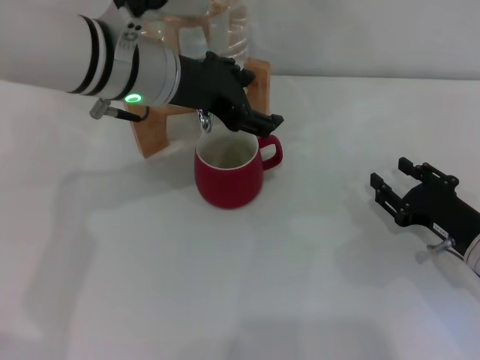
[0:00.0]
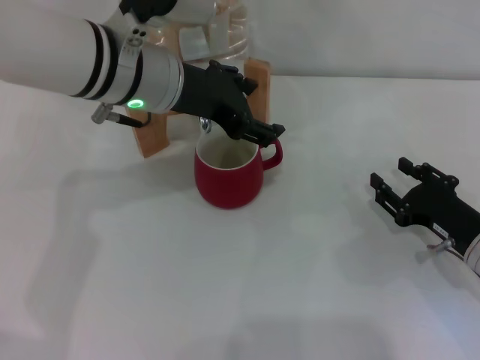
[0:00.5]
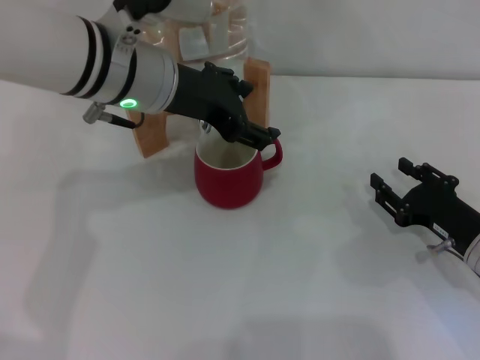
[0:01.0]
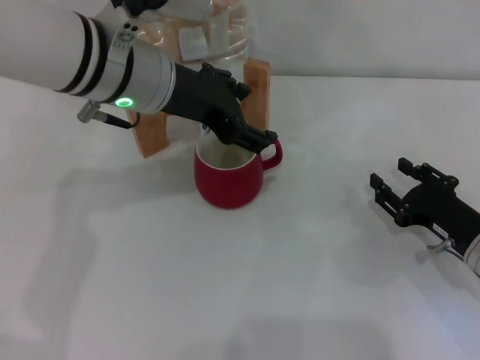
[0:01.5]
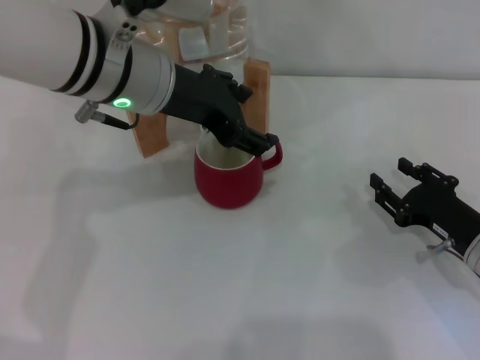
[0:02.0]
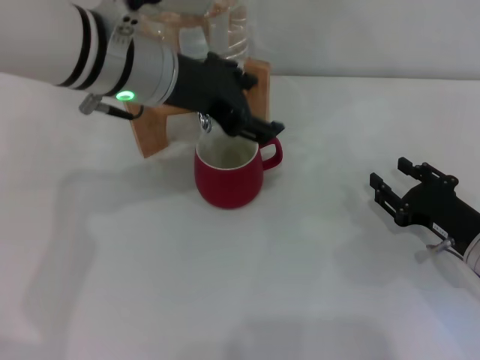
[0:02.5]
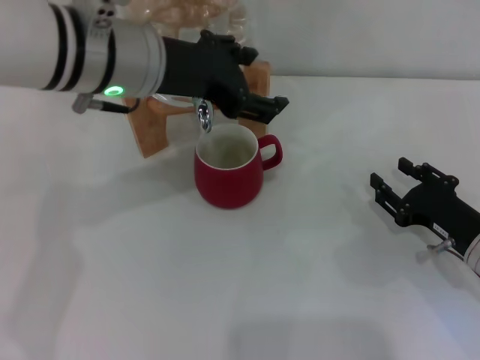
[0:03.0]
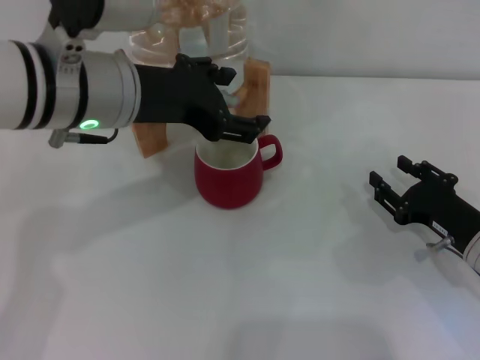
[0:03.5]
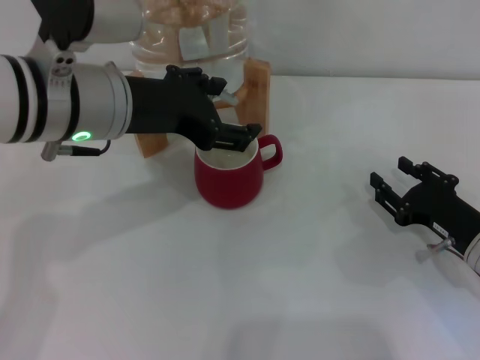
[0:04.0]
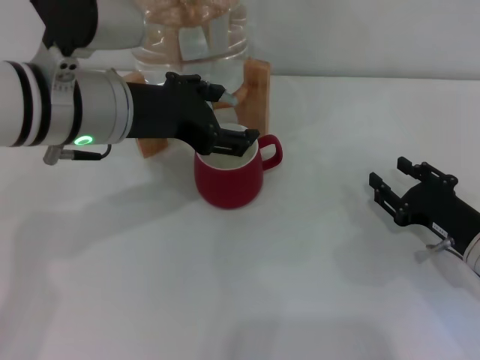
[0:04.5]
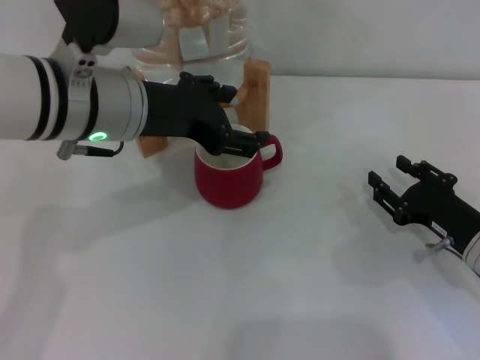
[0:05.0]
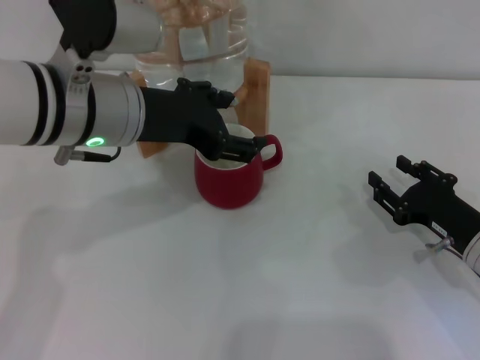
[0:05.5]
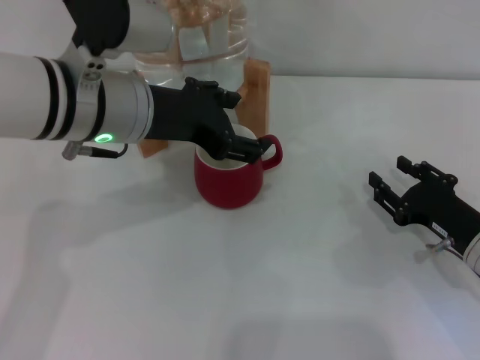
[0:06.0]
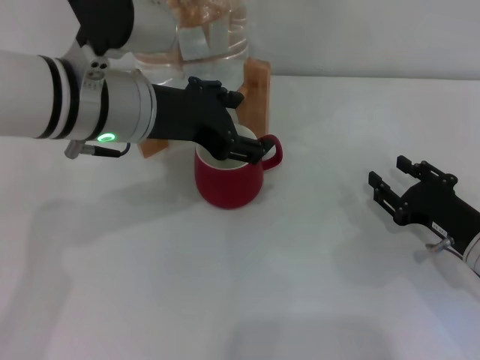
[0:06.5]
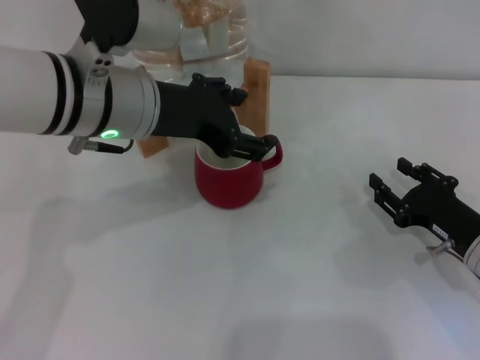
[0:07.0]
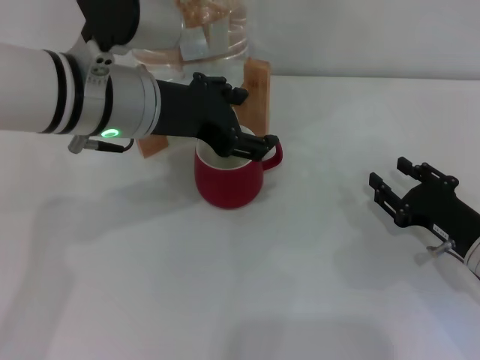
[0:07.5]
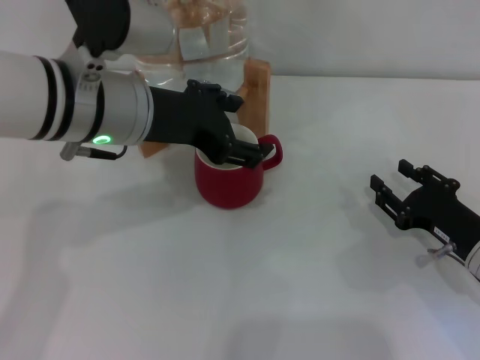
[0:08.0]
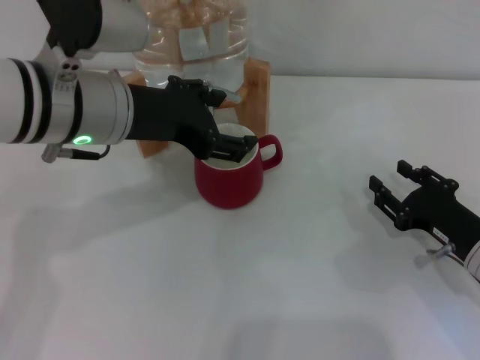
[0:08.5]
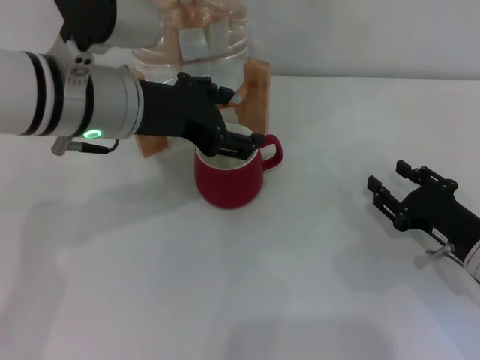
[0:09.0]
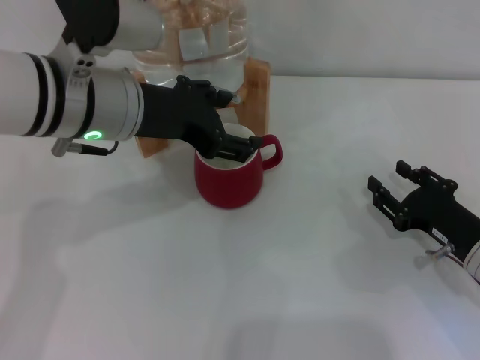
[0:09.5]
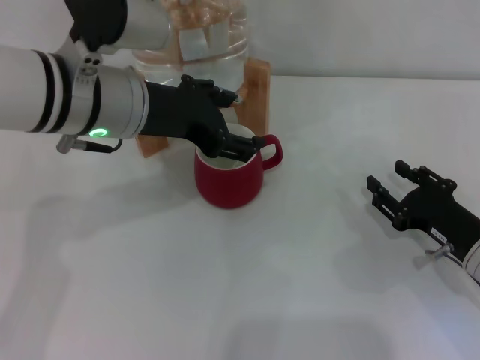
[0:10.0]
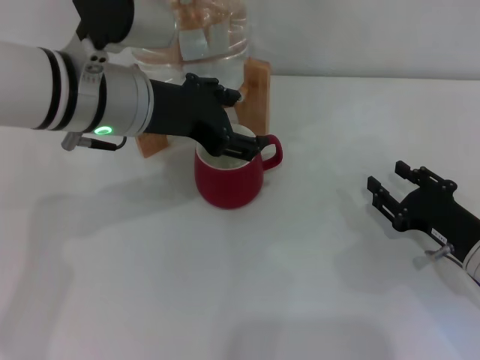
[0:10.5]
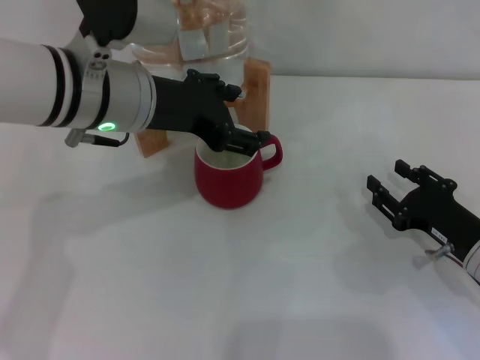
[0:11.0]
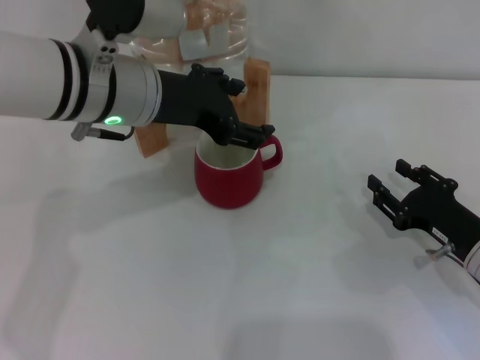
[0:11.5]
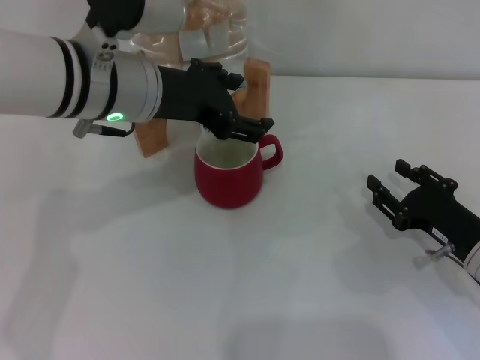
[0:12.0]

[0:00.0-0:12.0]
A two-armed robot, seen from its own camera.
Task of the whole recording: the right gripper pick up the red cup and place it horizontally under the faucet, the left gripper turn on the faucet to fill the cup, and then turn off the faucet.
Step, 0:00.0 to 0:05.0: Open the dispenser valve and fill the cup with water with the left gripper.
0:00.0 to 0:02.0: The grippers stay close to where they were, moving slightly.
0:02.0 to 0:04.0: The left gripper changes place by about 5 cm.
0:04.0 to 0:06.0: The grippers move only a little.
0:06.0 to 0:08.0: Both grippers stay about where they are.
0:08.0 to 0:12.0: The grippers stay close to where they were, moving slightly.

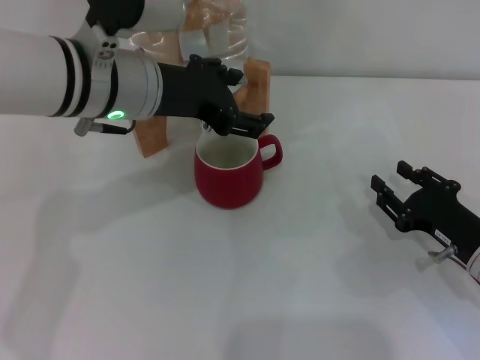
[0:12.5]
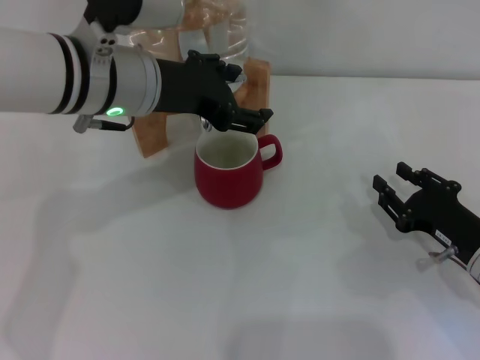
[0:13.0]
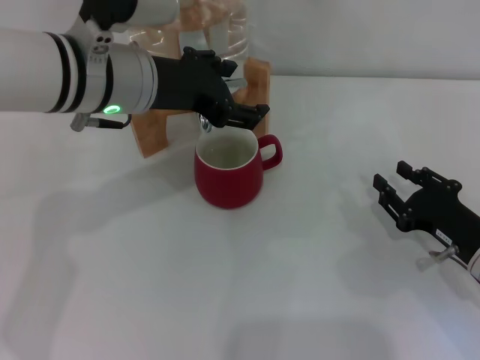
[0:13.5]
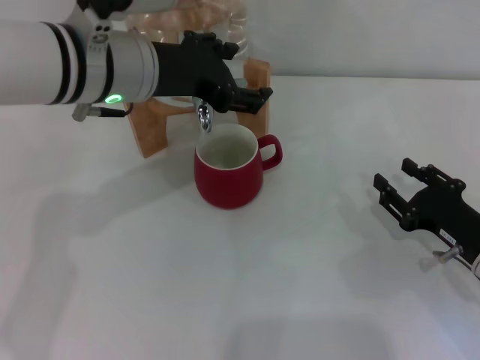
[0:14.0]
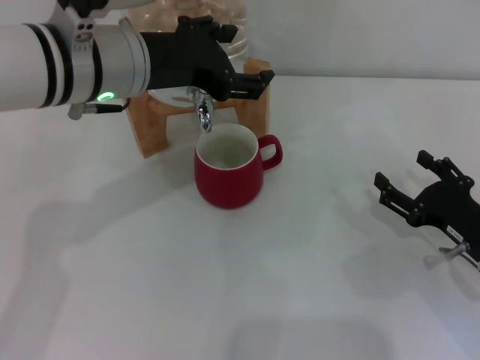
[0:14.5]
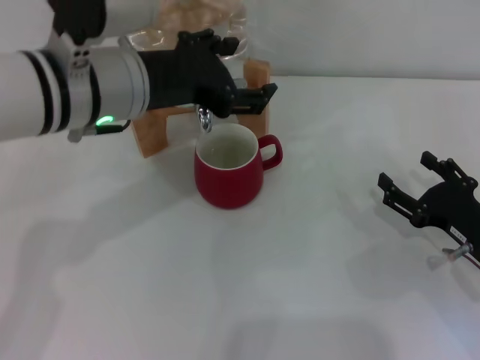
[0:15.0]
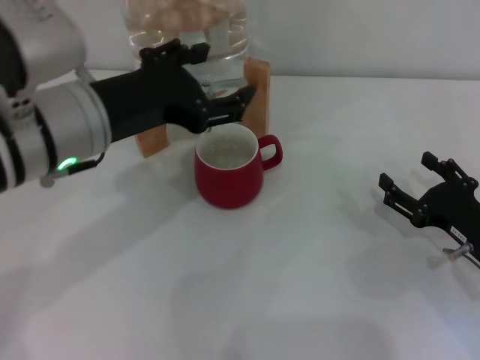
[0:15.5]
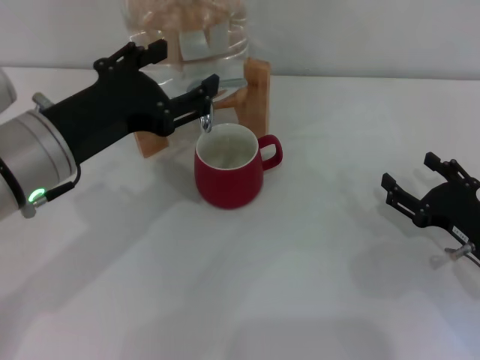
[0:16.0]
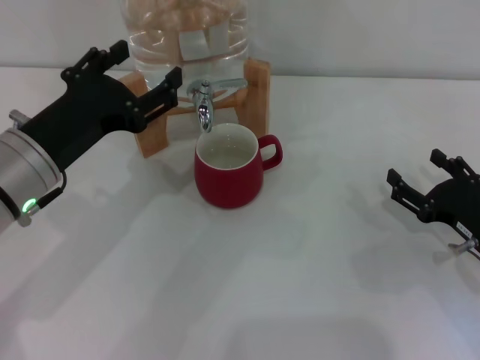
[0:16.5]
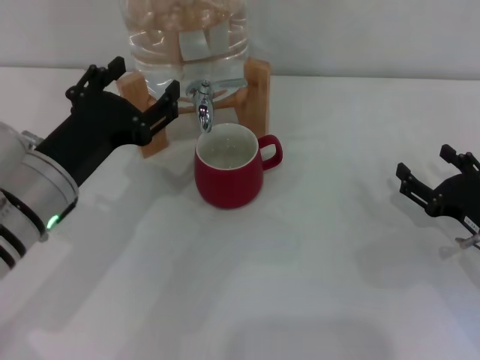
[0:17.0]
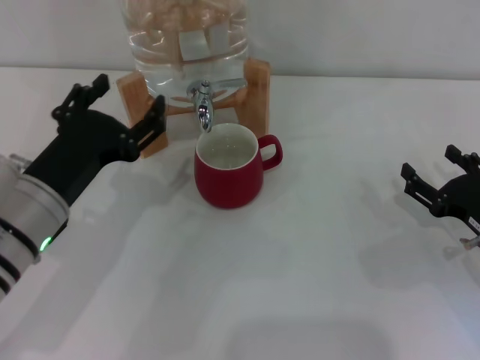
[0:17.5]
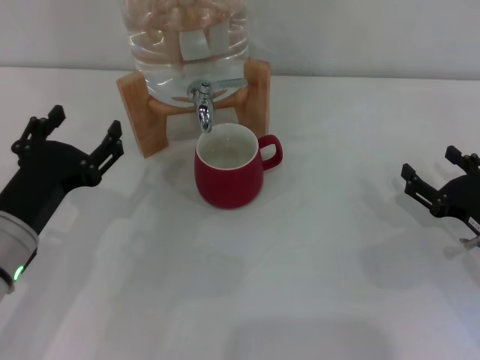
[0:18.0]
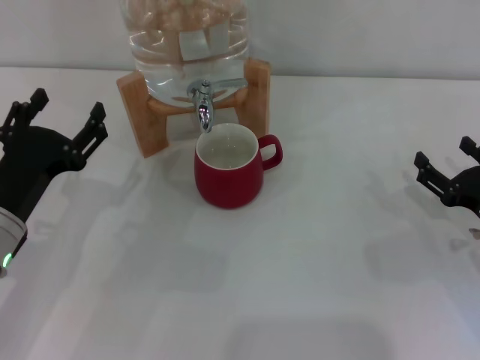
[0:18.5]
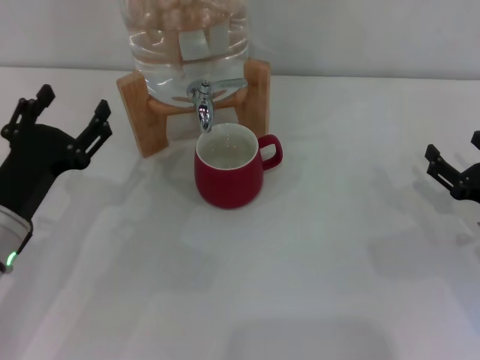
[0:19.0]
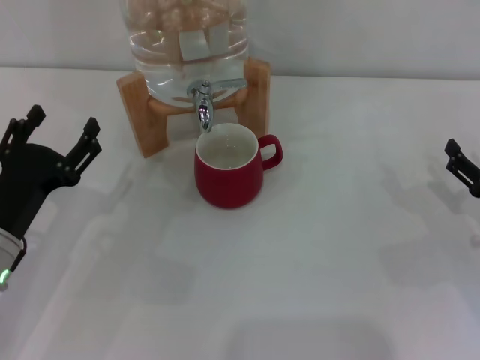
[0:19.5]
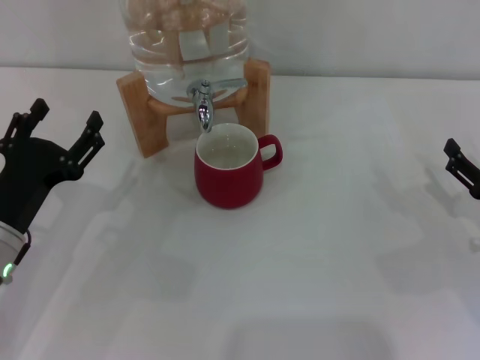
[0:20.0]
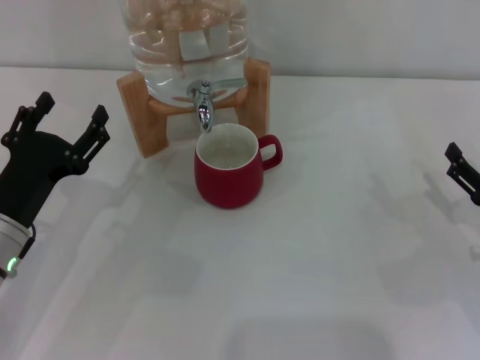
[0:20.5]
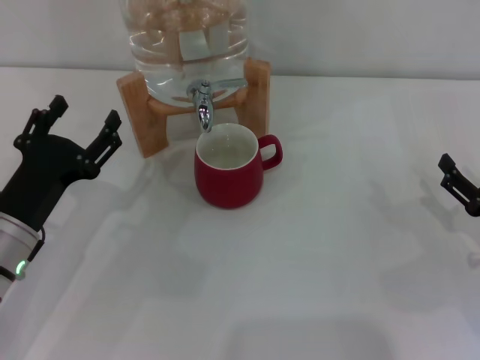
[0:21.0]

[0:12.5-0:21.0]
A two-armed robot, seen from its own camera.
Task of the whole recording: the right gripper pick up the red cup and place it horizontally under the faucet, the left gripper turn on the faucet to fill the cup, and then turn off the faucet.
Step, 0:12.5 to 0:14.5: Close the dispenser valve with the left gripper.
0:12.5 to 0:14.5: The grippers make only small movements.
0:14.5 to 0:16.5: The left gripper travels backward, downward and to the left by about 15 cm.
0:16.5 to 0:19.0: The left gripper is displaced downward by some 10 cm.
0:19.0 to 0:21.0: The grippers stay close to where they were, moving slightly.
